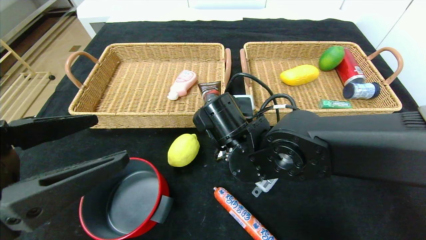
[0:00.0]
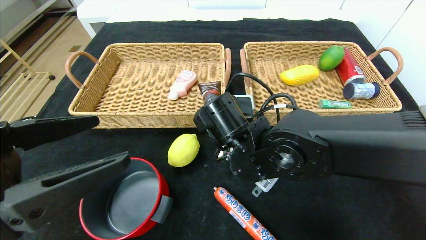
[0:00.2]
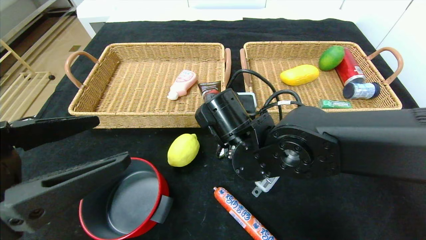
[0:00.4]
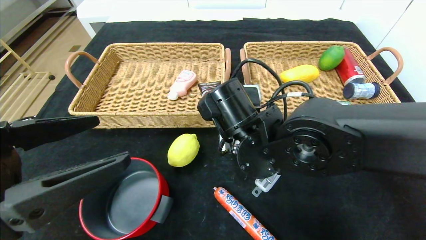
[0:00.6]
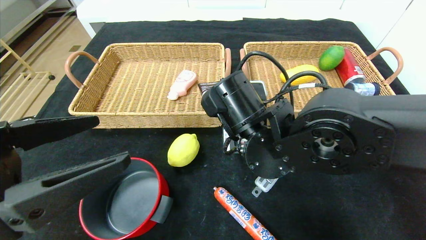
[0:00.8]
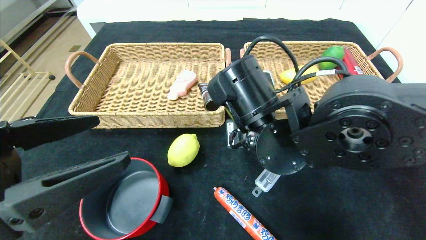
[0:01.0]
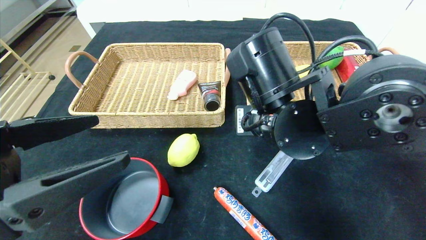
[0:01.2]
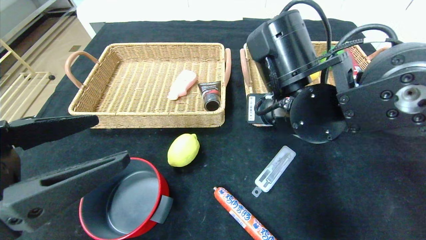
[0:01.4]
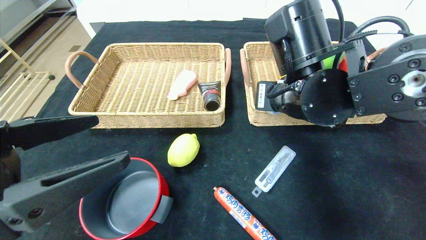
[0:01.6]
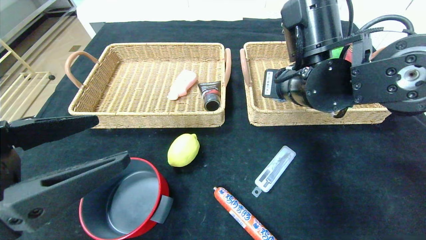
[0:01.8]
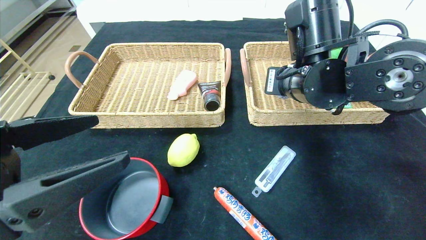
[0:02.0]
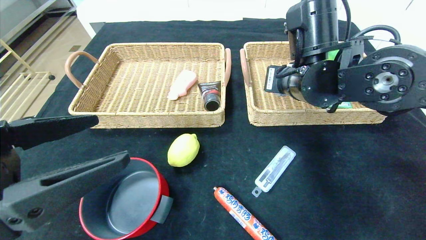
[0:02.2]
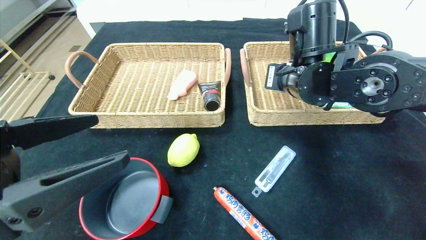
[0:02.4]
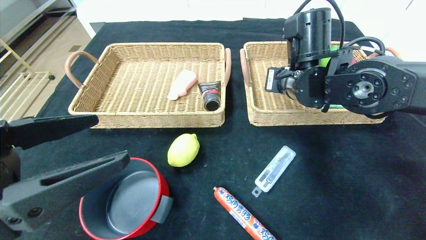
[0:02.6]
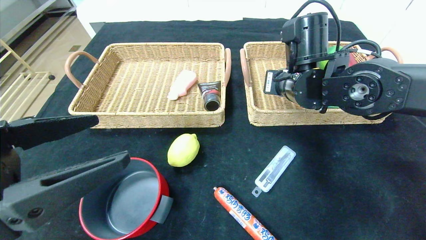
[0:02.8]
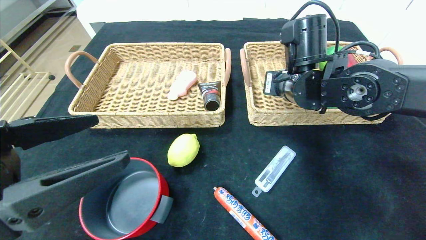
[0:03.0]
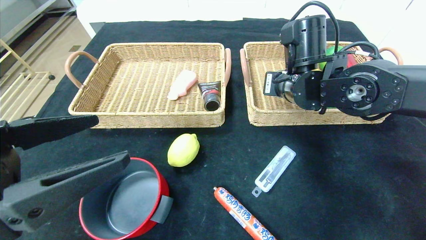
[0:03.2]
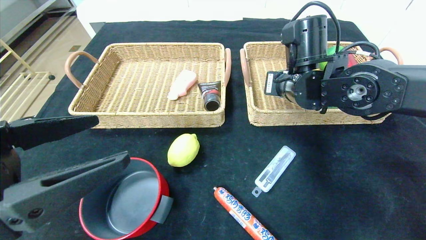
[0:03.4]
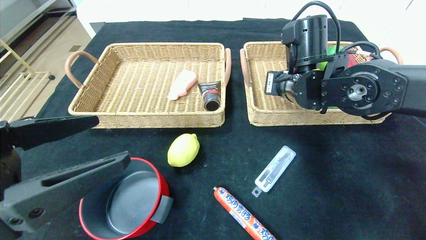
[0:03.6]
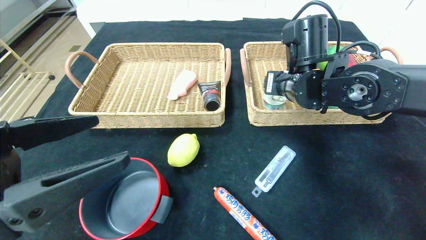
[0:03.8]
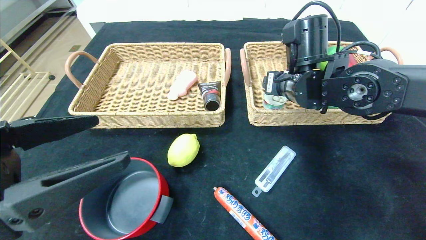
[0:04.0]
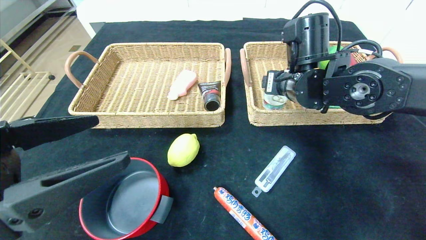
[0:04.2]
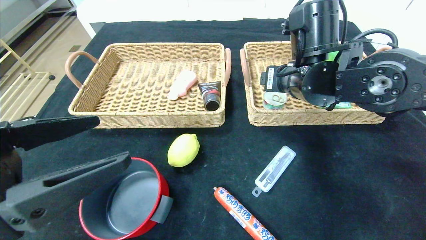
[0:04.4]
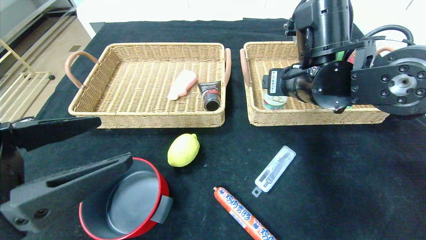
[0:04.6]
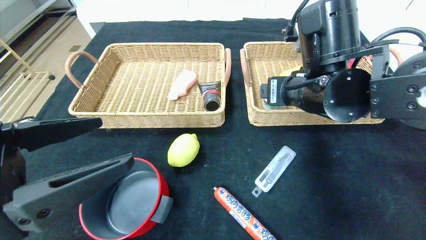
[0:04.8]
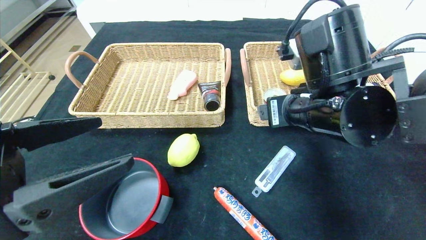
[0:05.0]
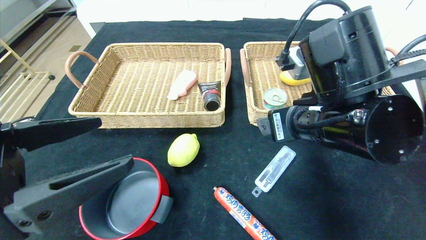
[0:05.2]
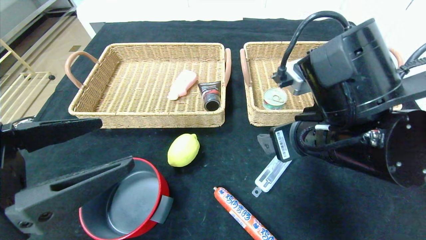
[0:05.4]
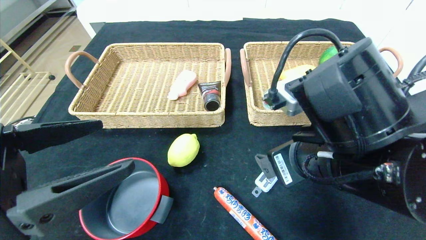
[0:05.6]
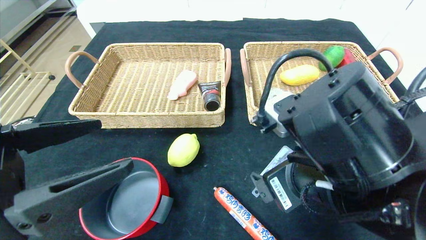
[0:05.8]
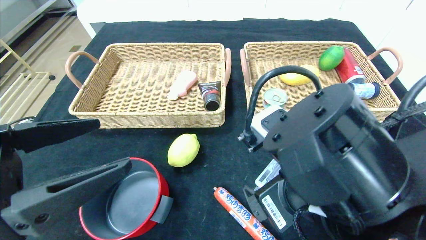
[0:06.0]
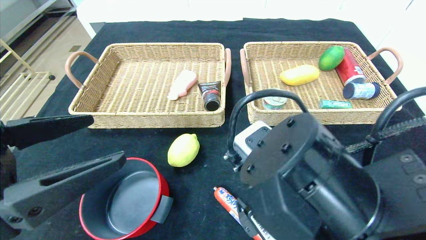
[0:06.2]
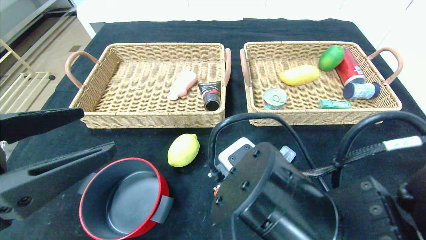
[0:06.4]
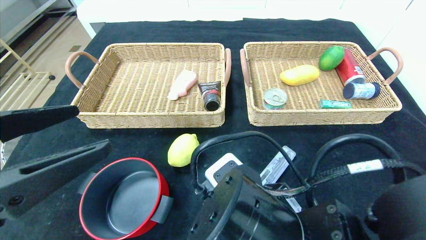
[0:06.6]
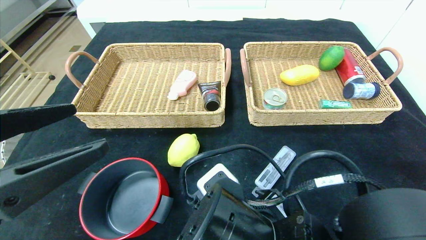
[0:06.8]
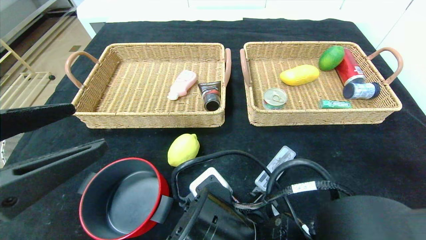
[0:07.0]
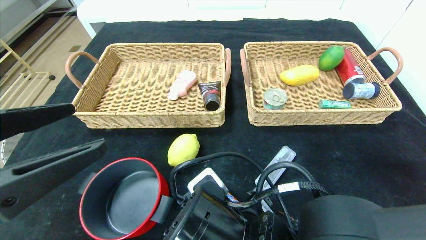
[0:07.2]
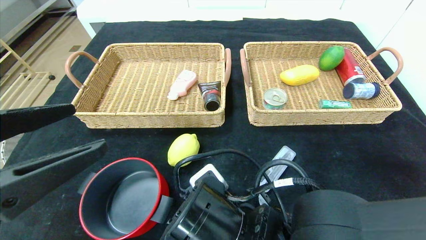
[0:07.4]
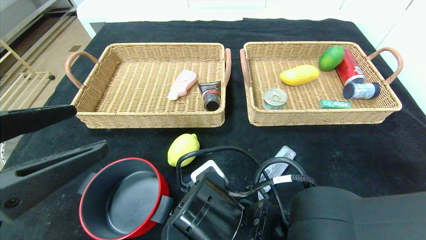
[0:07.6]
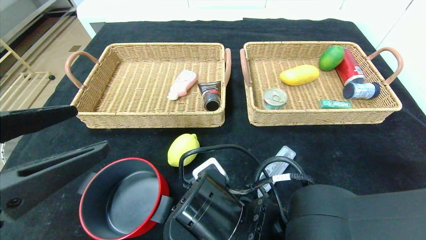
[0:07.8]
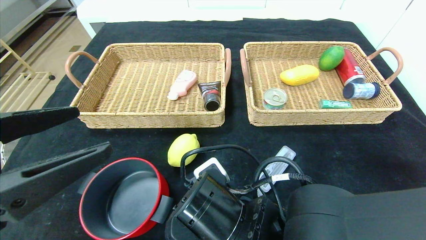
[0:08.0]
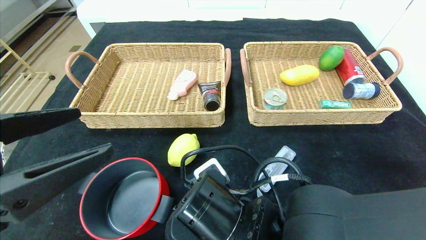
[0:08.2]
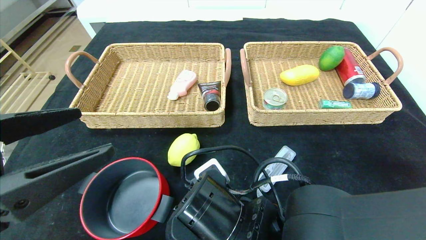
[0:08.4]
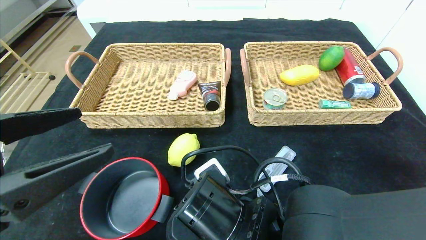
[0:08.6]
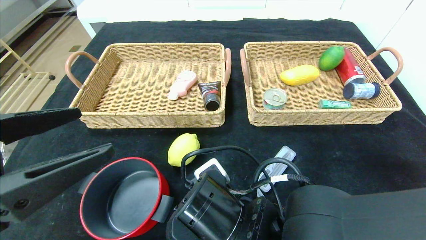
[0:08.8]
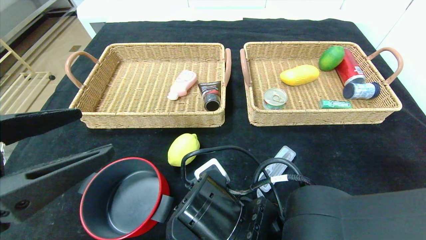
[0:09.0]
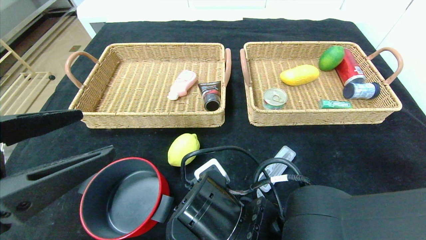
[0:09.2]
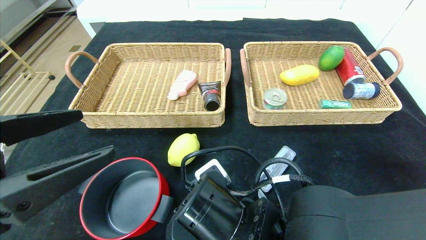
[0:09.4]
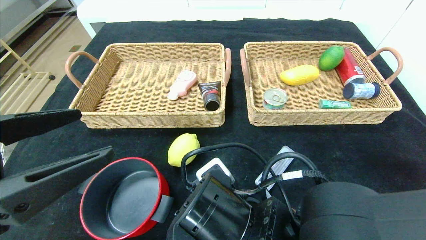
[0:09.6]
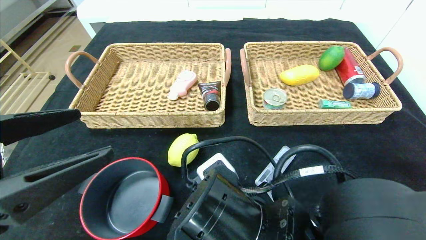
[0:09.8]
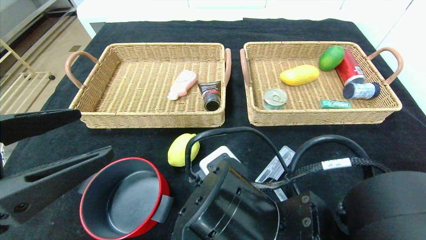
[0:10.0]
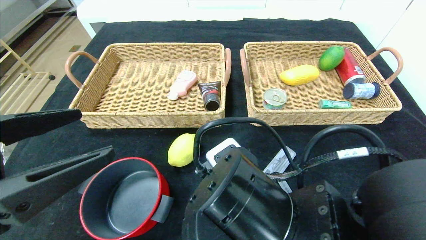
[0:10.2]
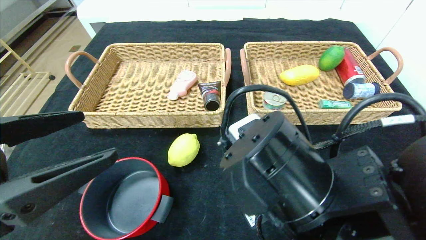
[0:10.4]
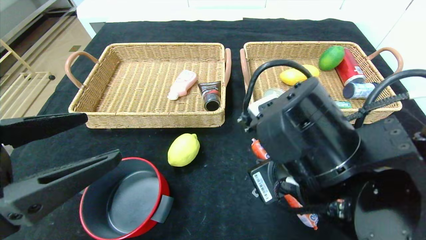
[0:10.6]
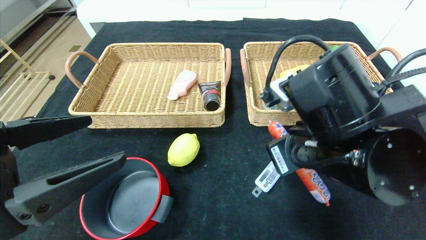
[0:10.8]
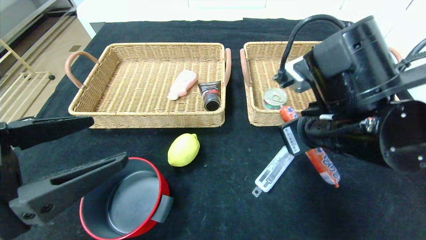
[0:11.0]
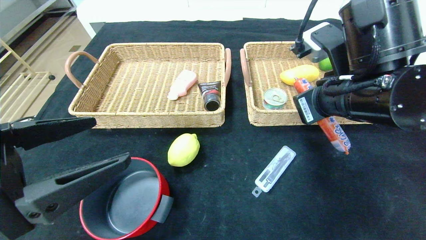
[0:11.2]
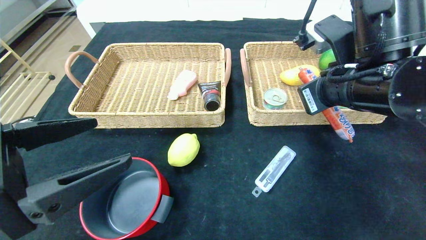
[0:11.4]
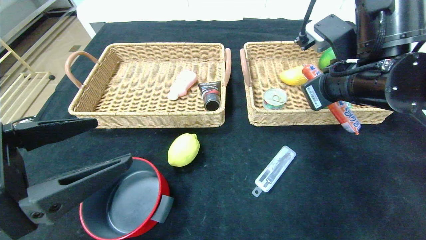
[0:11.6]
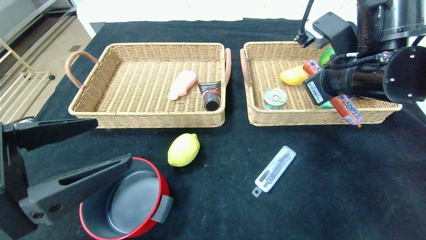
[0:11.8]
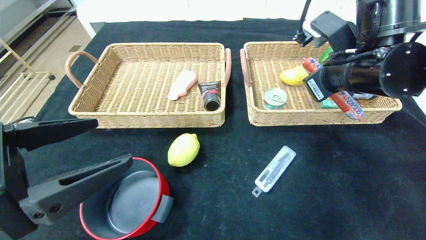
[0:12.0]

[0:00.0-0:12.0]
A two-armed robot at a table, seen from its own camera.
Step, 0:00.0 to 0:05.6: Pick up the can and put it in the right basket.
0:00.0 to 0:01.6: The right gripper moves upward and to the right, some 10 cm.
0:01.6 to 0:03.0: The right gripper moves forward, about 10 cm.
0:03.0 to 0:04.4: The grippers stay close to where they were, moving slightly.
0:04.4 to 0:06.0: The right gripper goes approximately 20 cm backward.
0:06.0 to 0:07.6: The right gripper heads downward and to the left, covering about 10 cm.
0:07.6 to 0:09.0: The right gripper closes its fingers.
0:09.0 to 0:10.4: The right gripper heads upward, covering approximately 5 cm.
0:10.4 to 0:12.0: The right gripper moves forward, to the right and upward, about 20 cm.

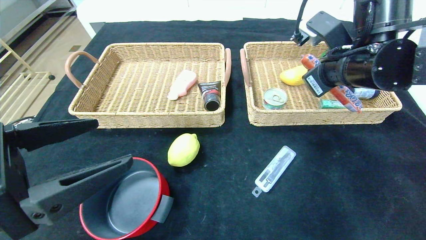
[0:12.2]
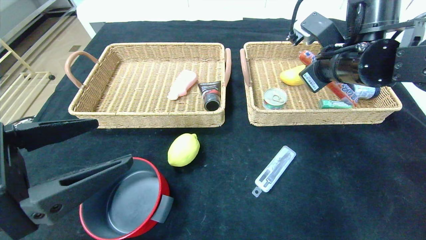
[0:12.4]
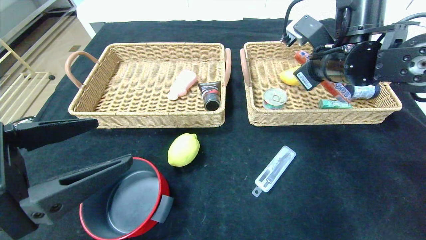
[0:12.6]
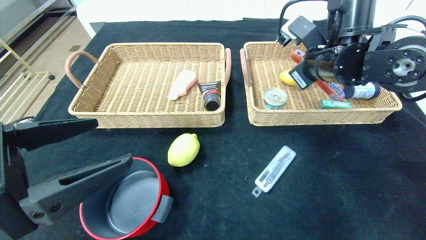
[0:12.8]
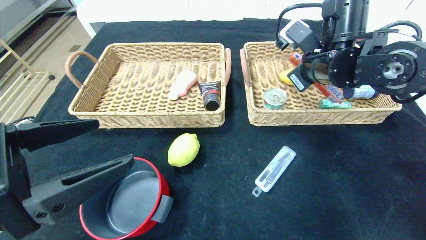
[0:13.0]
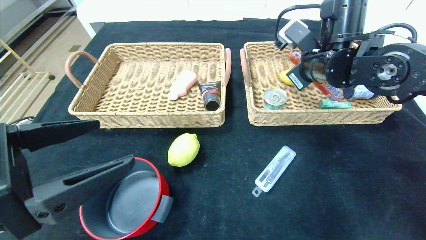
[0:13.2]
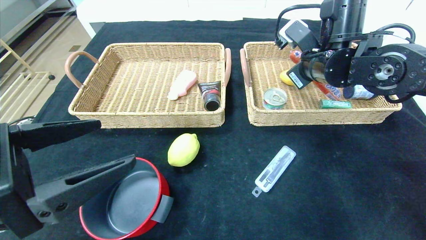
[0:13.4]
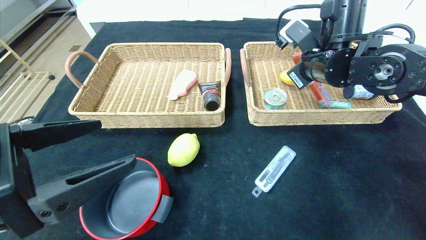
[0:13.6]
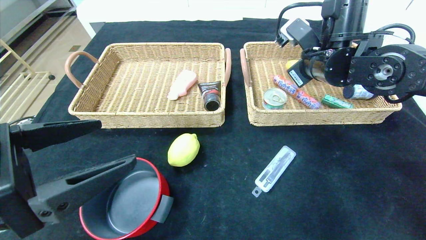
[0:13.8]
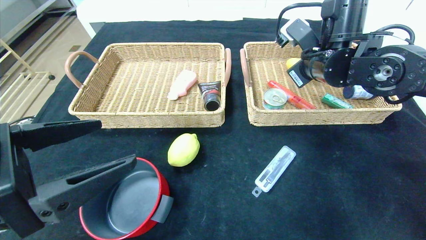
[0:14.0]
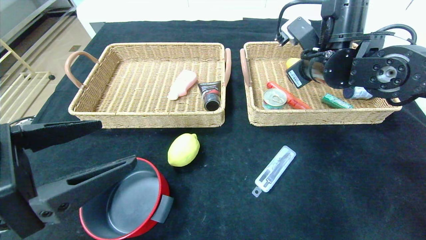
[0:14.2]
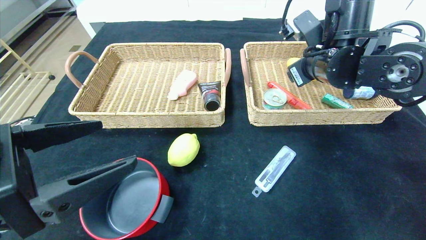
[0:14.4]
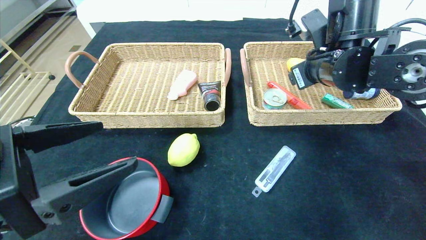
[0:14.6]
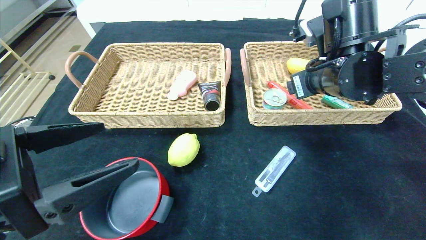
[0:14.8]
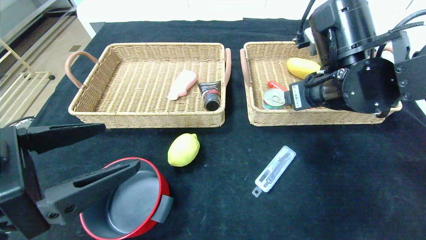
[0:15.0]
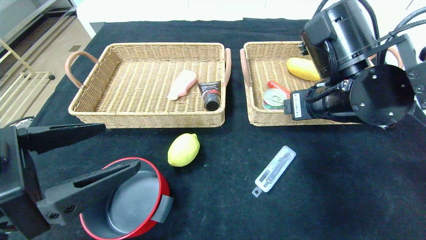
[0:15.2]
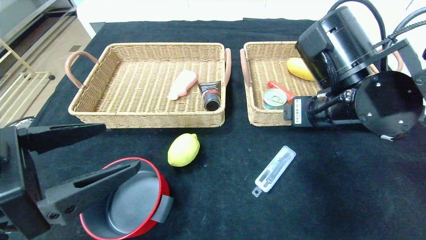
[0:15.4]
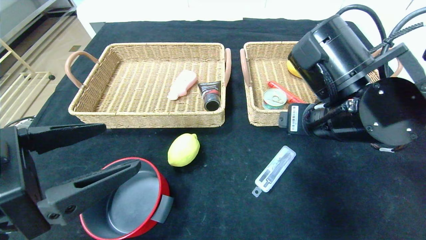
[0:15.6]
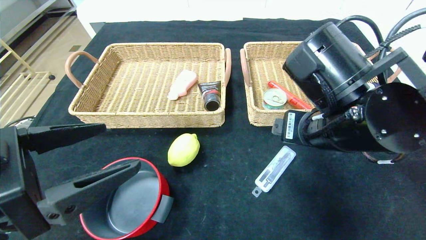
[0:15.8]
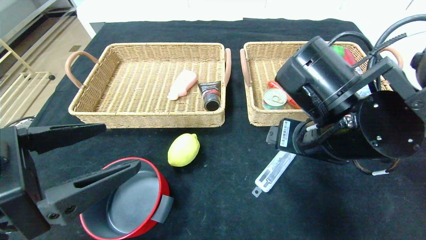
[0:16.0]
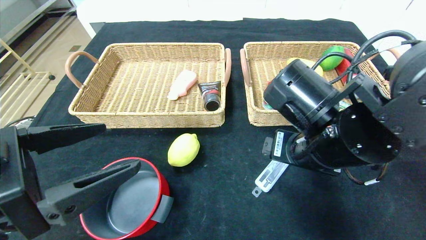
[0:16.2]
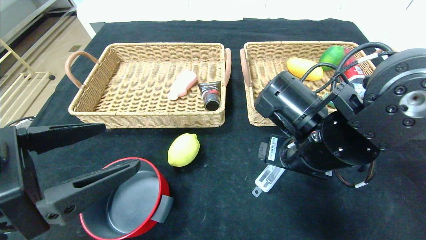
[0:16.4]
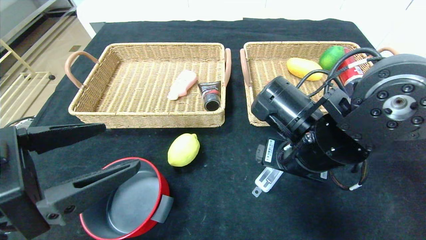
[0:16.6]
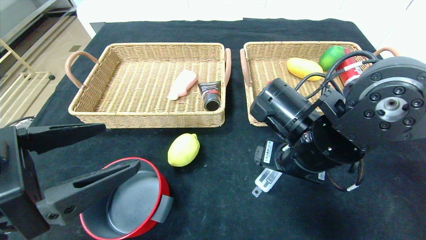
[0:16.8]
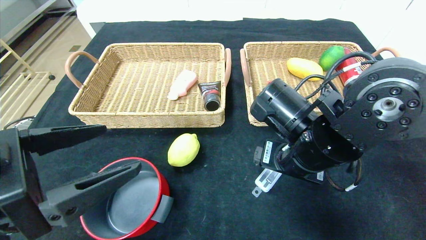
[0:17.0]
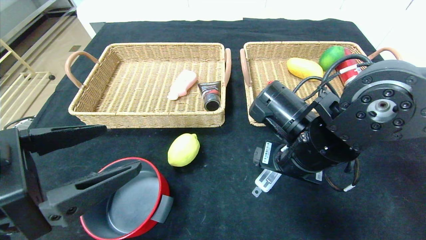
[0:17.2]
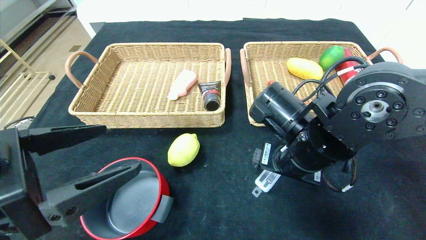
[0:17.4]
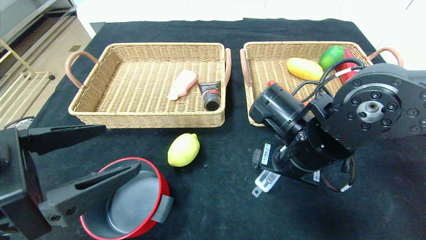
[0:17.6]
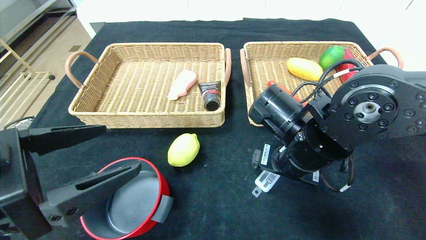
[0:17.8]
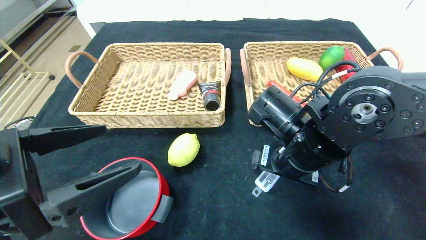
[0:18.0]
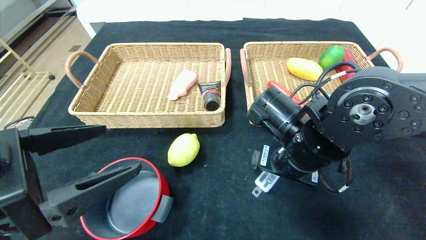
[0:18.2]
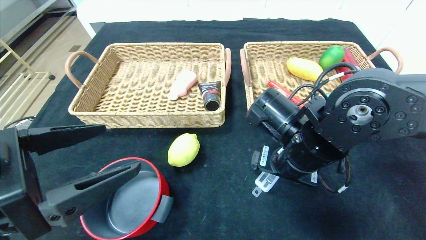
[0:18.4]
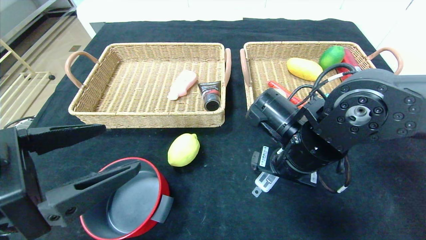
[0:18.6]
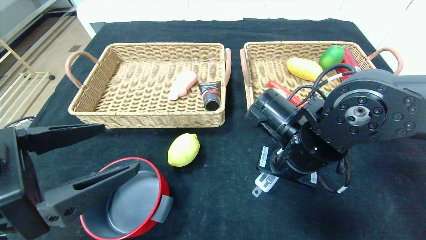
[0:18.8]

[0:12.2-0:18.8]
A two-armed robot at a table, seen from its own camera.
Step, 0:12.2 to 0:16.2: Pick up the sausage and put it in the right basket.
0:12.2 to 0:13.8: The right gripper goes about 5 cm forward, and opens up.
0:13.8 to 0:15.4: The right gripper travels backward by roughly 15 cm, and opens.
0:15.4 to 0:17.2: The right gripper travels downward by approximately 5 cm.
0:17.2 to 0:18.8: The right gripper closes up.
